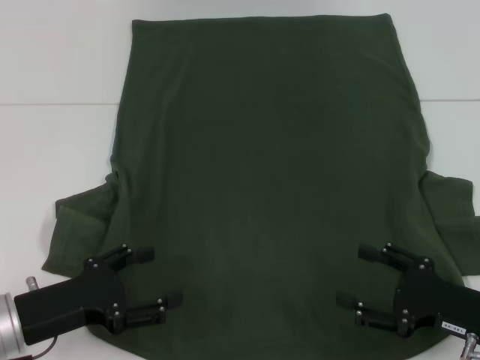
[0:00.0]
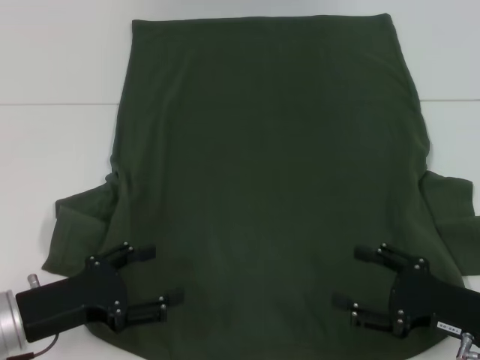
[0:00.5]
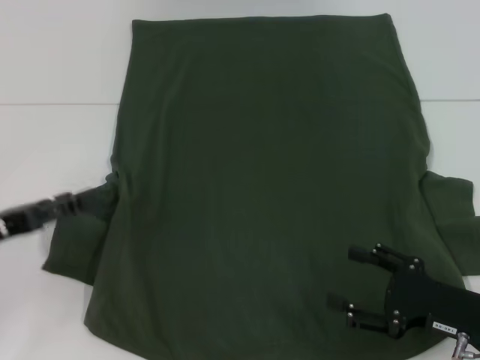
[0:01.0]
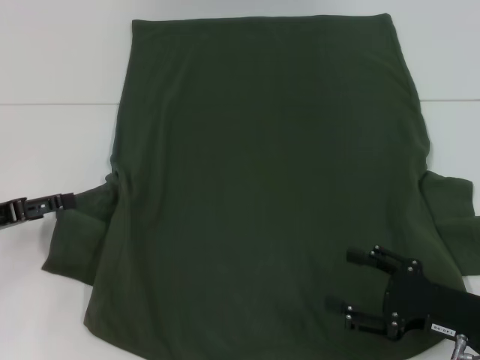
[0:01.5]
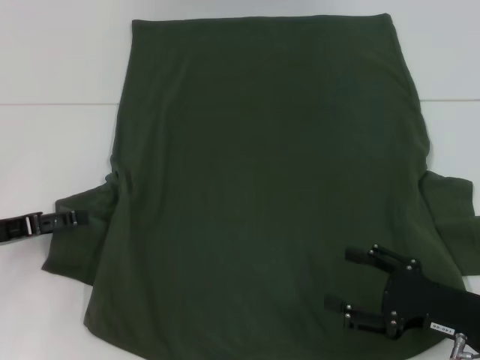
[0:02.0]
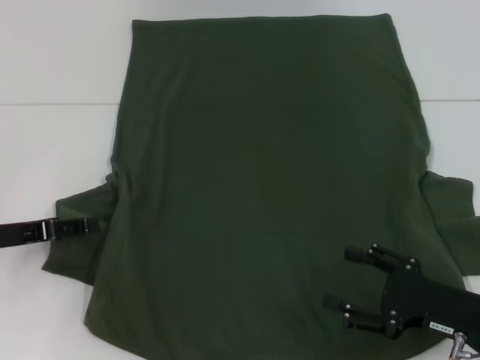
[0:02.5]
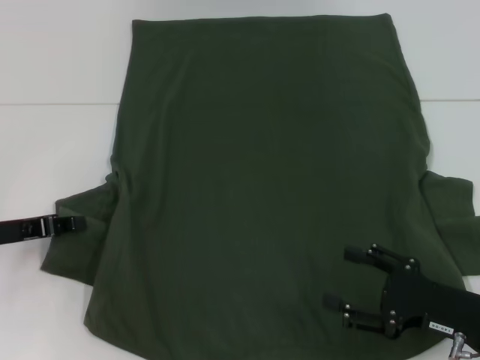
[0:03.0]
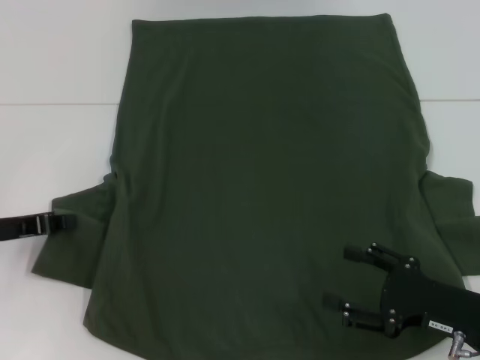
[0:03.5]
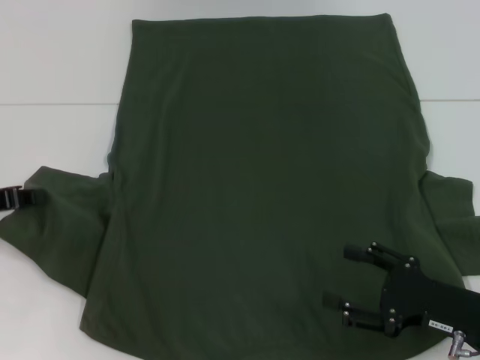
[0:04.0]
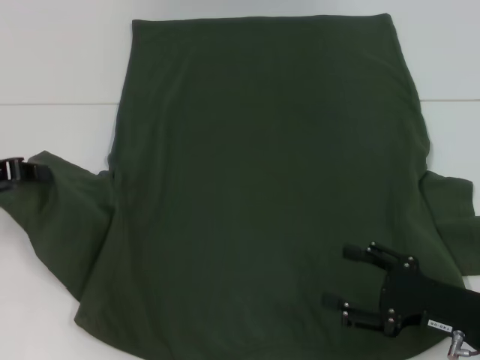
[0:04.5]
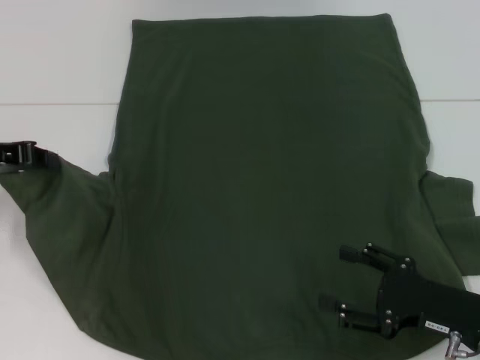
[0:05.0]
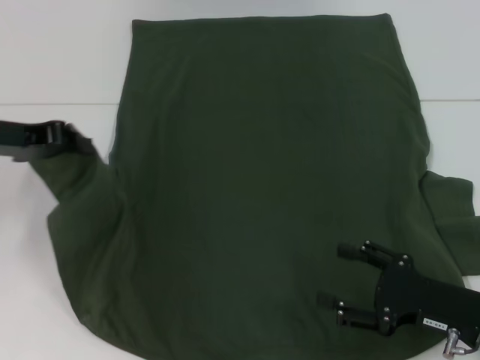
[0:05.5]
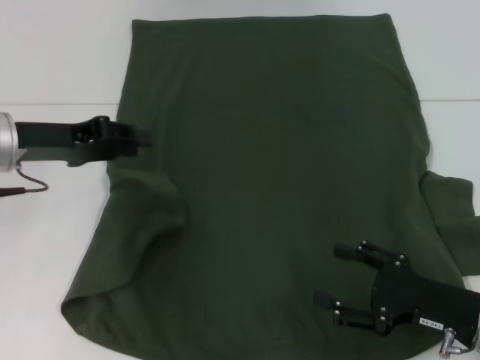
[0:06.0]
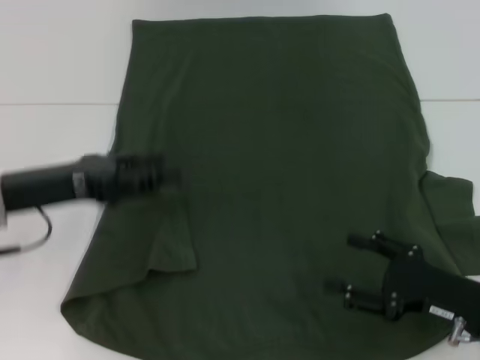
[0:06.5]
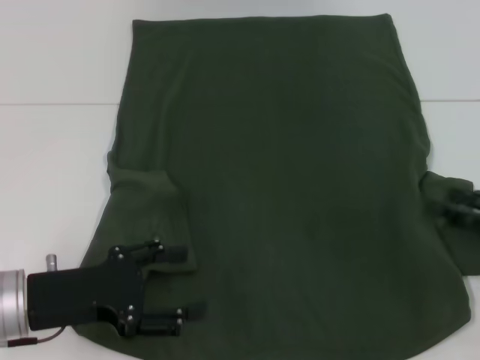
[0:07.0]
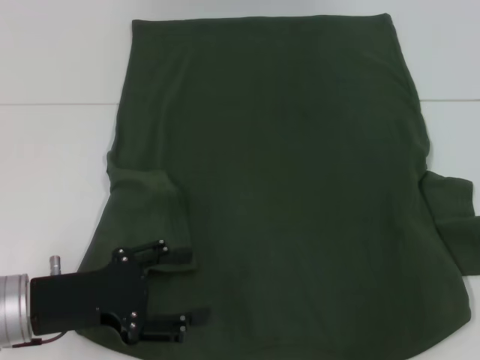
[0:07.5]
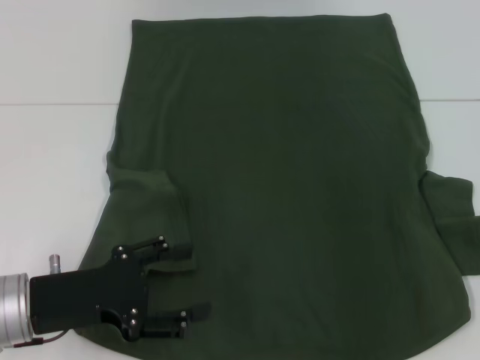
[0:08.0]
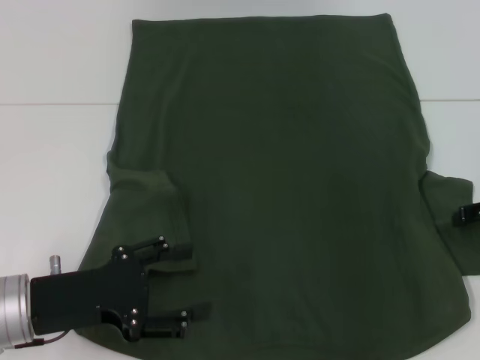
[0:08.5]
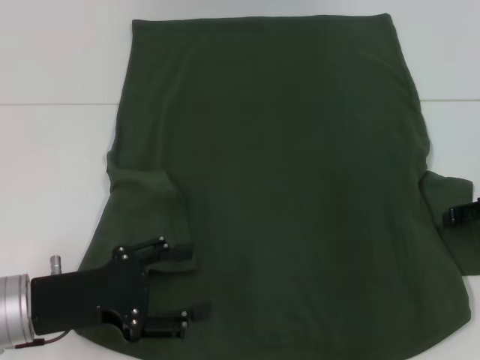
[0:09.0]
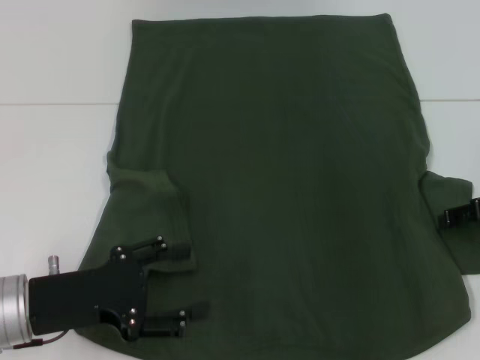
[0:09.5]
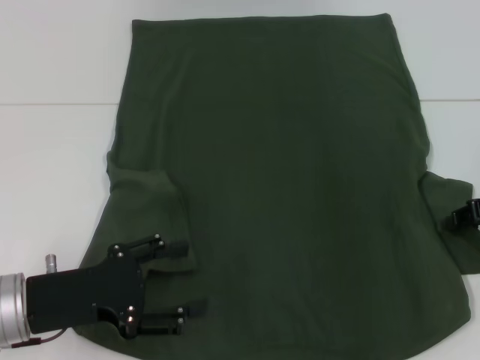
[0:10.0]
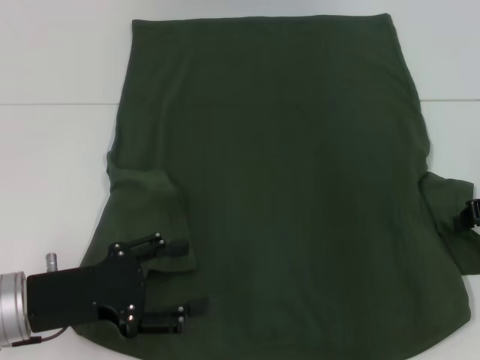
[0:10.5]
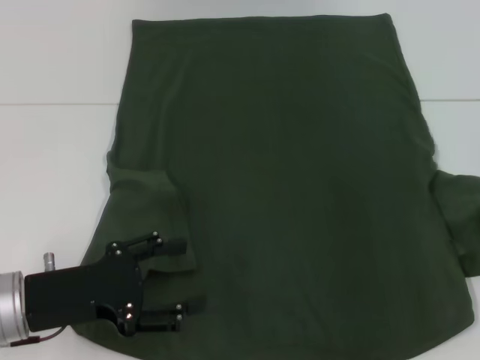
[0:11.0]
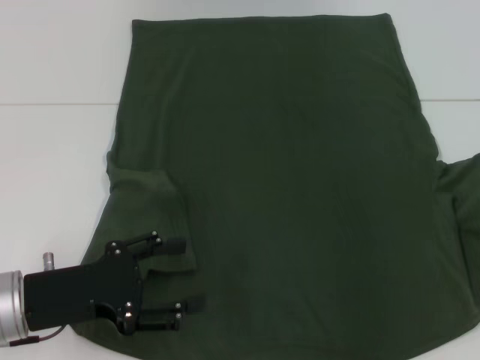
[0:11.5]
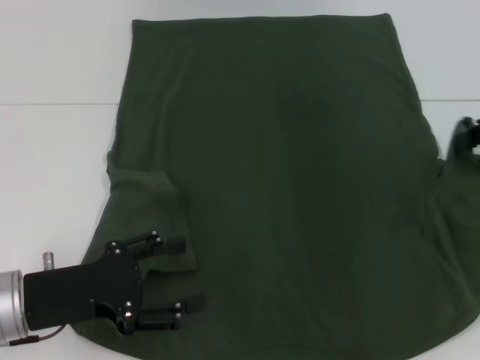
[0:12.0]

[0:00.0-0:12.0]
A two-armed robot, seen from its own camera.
Step, 0:00.0 to 0:07.5: Fold the bottom left sleeve with your left hand.
0:00.0 to 0:02.0: The left gripper shifts roughly 10 cm to the left and forward.
0:02.0 to 0:04.0: The left gripper closes.
0:04.0 to 0:06.0: The left gripper shifts roughly 10 cm to the right and upward.
0:06.0 to 0:08.0: The right gripper shifts about 20 cm upward, to the right and forward. Meanwhile the left gripper shifts roughly 15 cm backward and downward, and opens.
0:08.0 to 0:10.0: The right gripper ends up some 5 cm from where it was, and closes up.
0:10.0 to 0:12.0: The right gripper moves upward, some 5 cm, and closes its fingers.

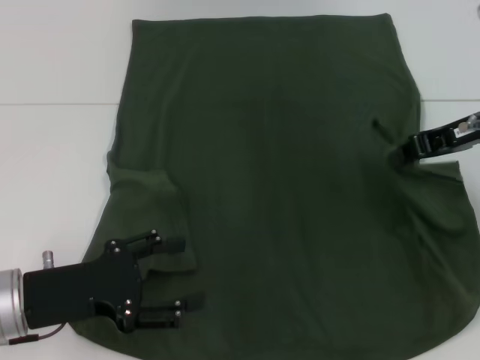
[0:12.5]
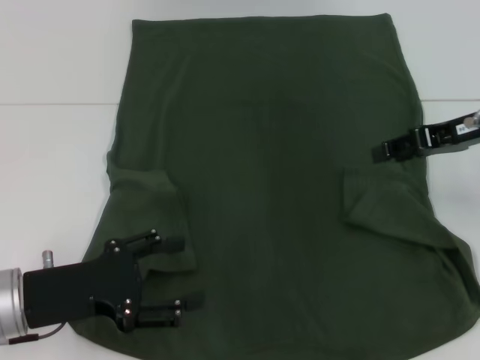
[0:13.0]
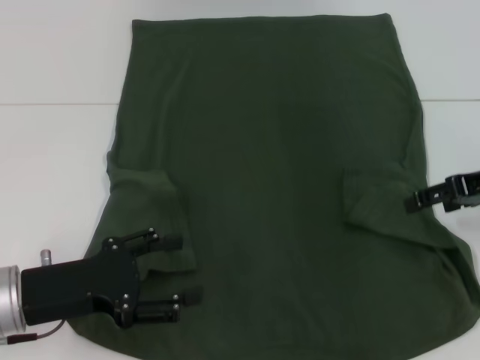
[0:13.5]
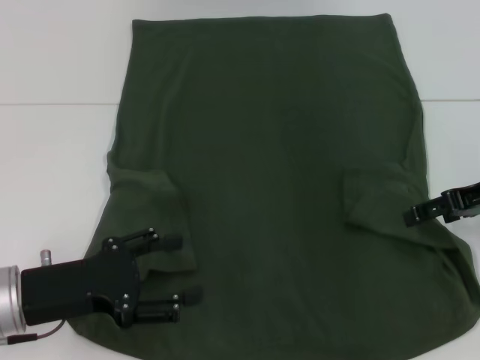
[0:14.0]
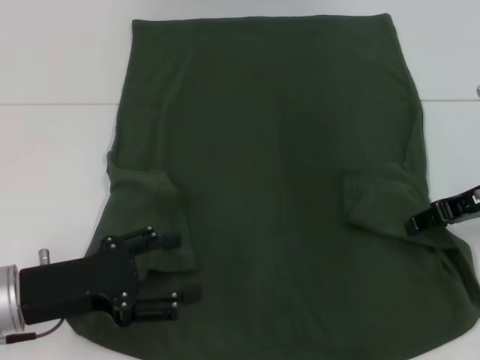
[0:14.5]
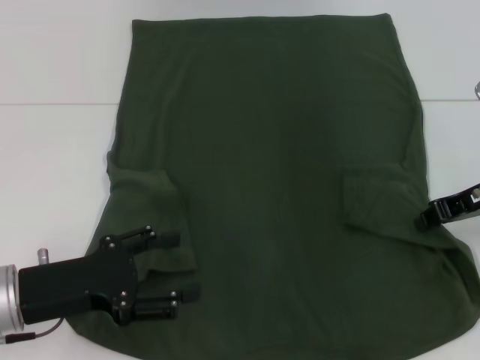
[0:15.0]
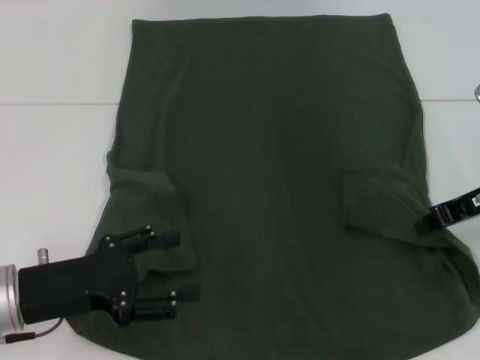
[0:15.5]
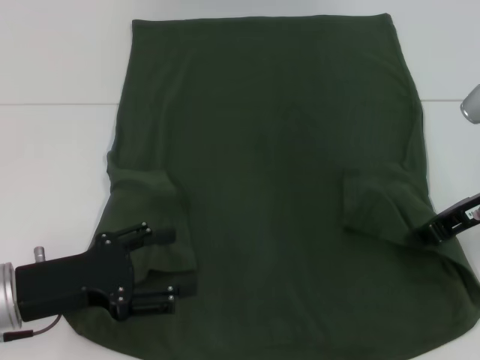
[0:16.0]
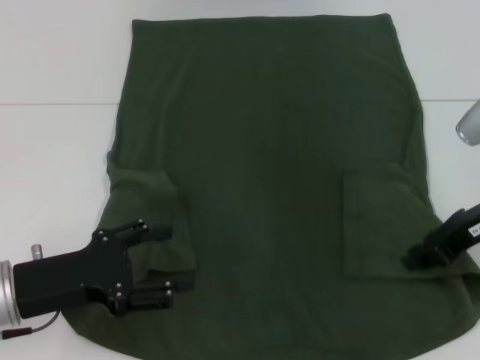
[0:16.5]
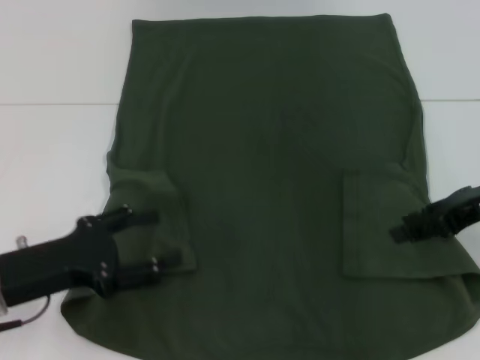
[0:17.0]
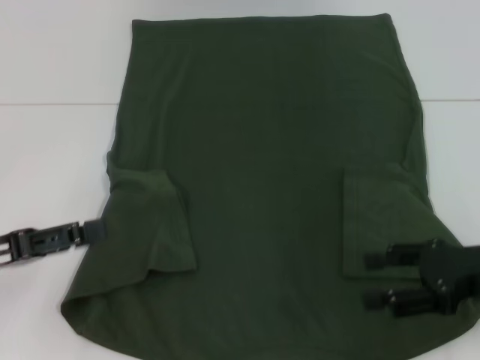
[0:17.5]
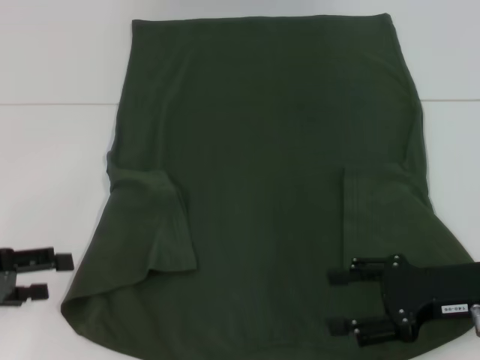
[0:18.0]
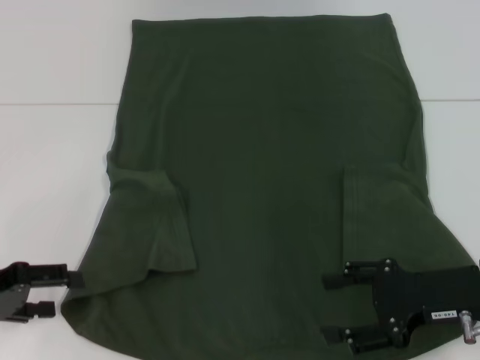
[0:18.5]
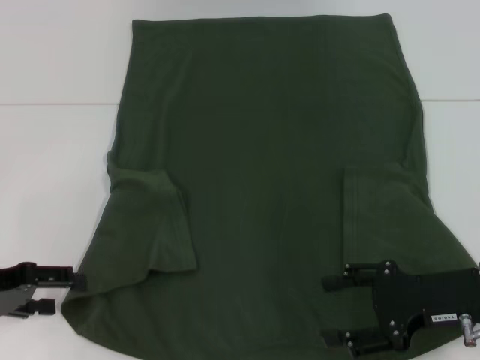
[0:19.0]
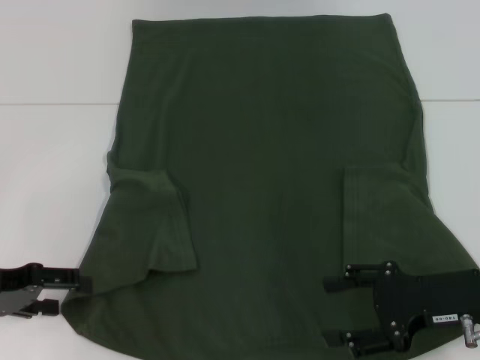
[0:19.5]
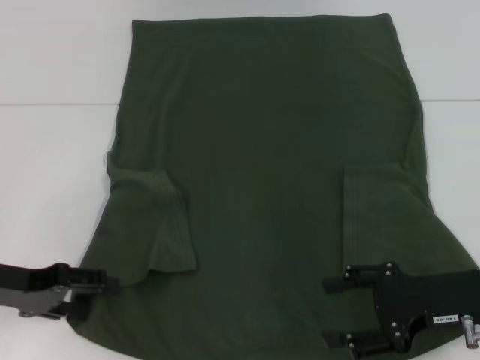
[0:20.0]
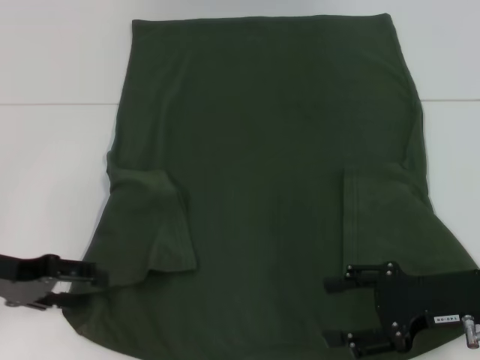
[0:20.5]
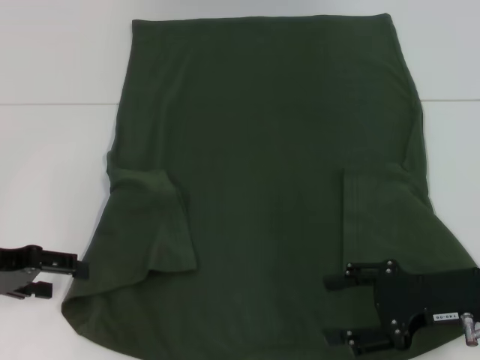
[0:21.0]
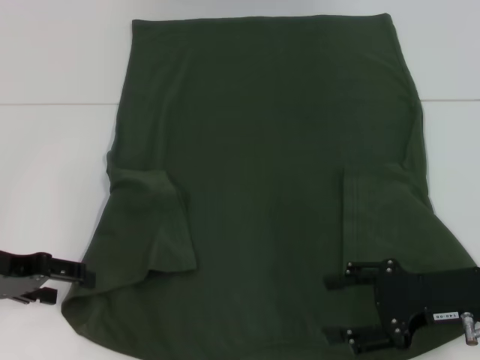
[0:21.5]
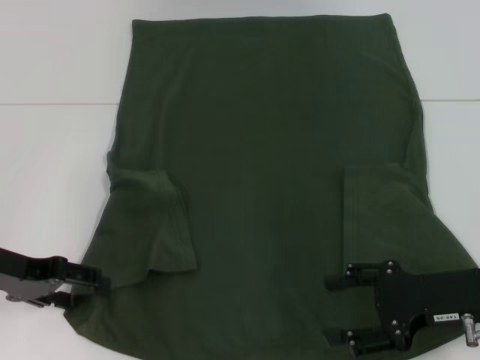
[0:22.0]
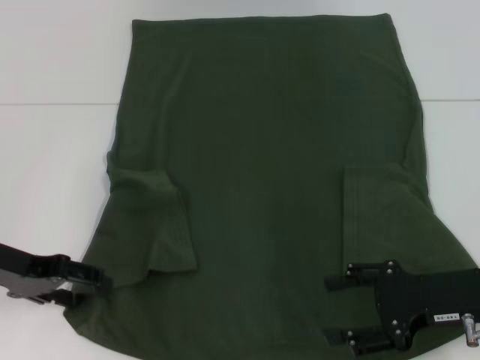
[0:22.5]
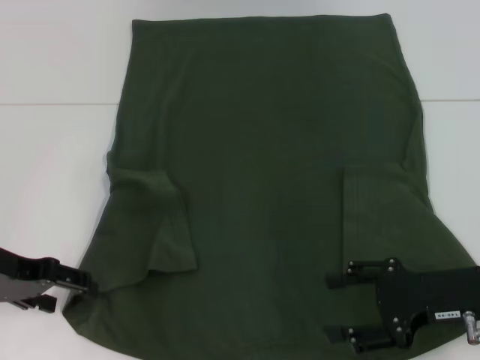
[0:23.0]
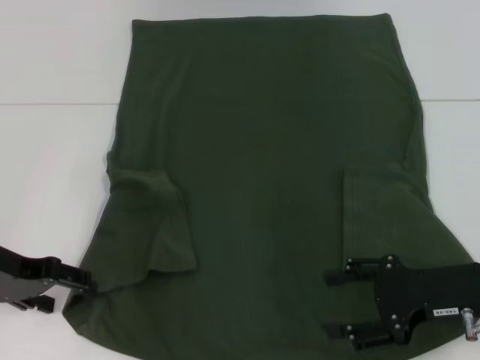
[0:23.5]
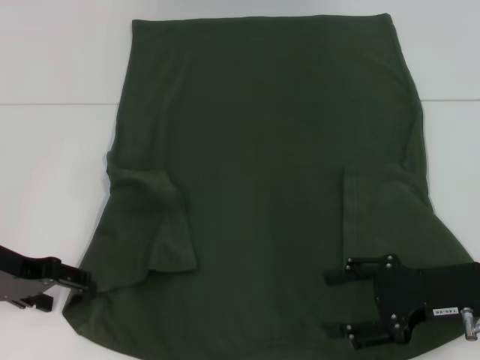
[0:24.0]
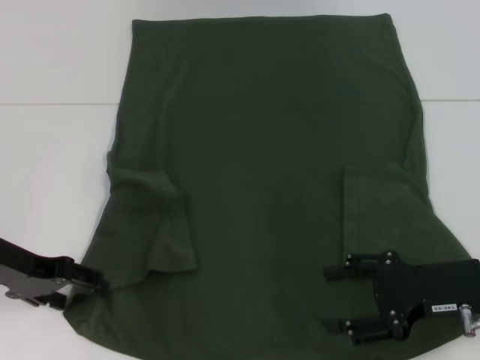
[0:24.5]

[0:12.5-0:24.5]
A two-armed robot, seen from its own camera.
Step, 0:12.5 to 0:17.0: Fold the bottom right sleeve with your right hand.
0:12.5 to 0:14.5: The right gripper shifts roughly 5 cm downward, and opens up.
0:14.5 to 0:16.5: The right gripper closes.
0:16.5 to 0:18.5: The left gripper moves to the left, approximately 10 cm, while the right gripper heads backward and downward, covering roughly 10 cm, and opens.
0:18.5 to 0:20.5: The grippers stay close to where they were, moving slightly.
0:20.5 to 0:24.5: The grippers move only a little.

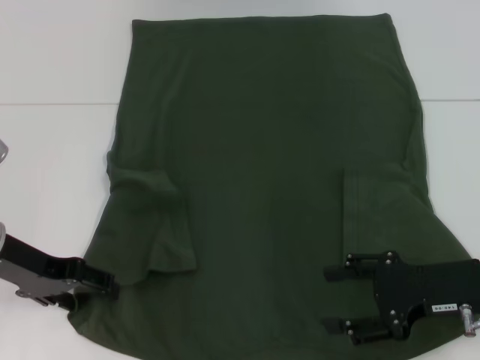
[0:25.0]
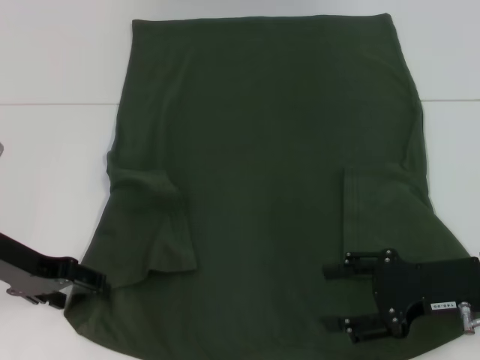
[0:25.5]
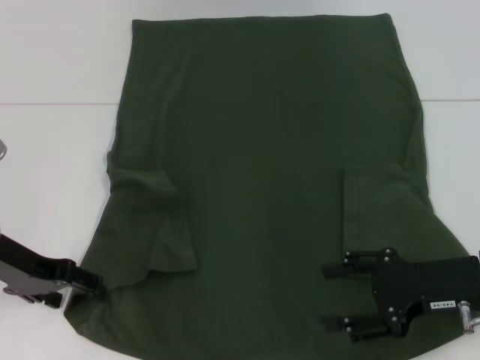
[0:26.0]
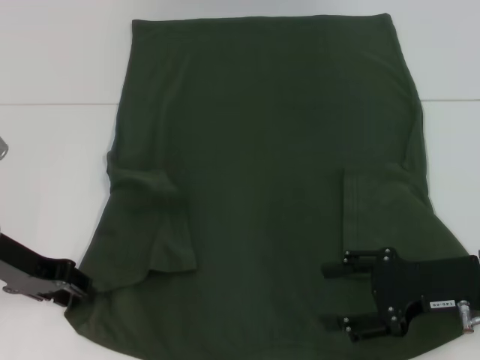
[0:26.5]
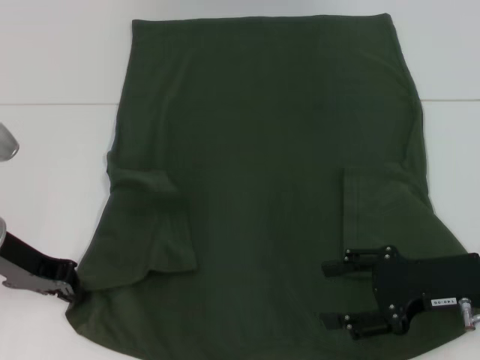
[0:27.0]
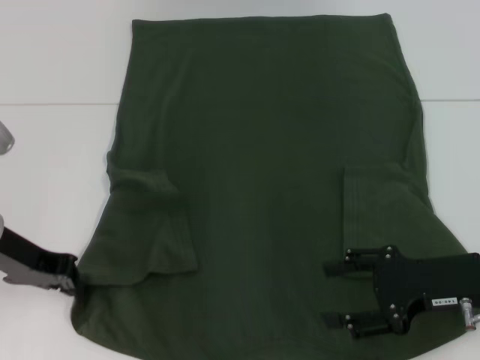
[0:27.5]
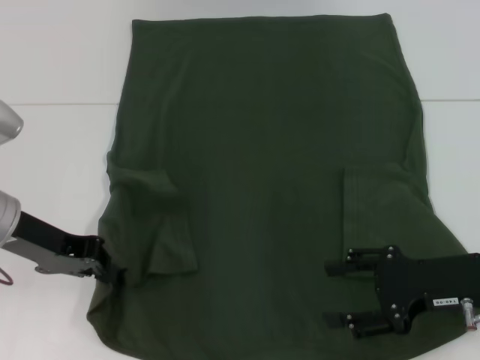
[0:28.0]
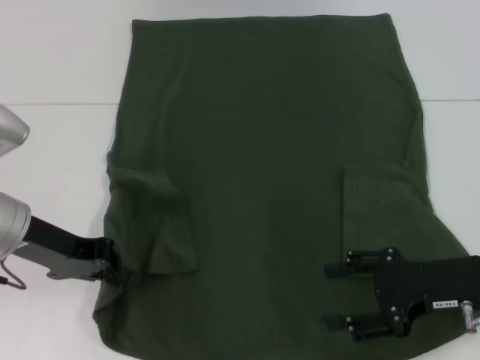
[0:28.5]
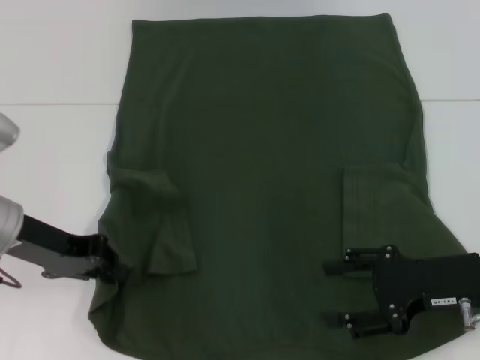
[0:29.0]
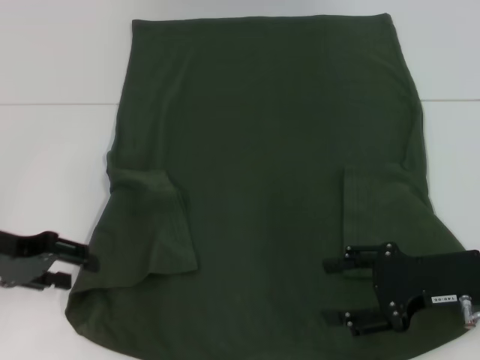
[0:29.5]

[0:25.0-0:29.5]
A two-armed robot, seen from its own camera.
0:25.0 to 0:27.0: The left gripper closes up.
0:27.0 to 0:29.5: The left gripper opens.
